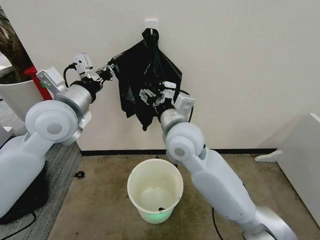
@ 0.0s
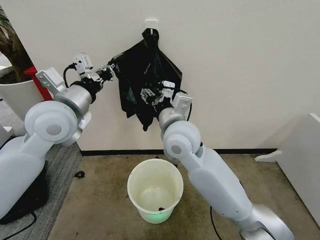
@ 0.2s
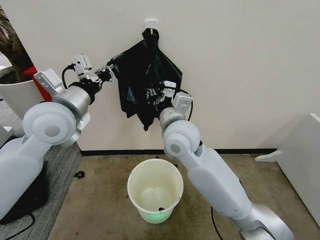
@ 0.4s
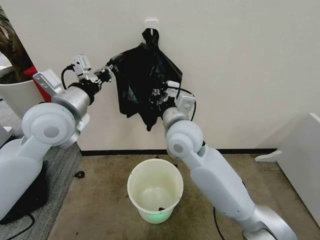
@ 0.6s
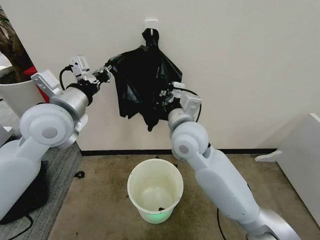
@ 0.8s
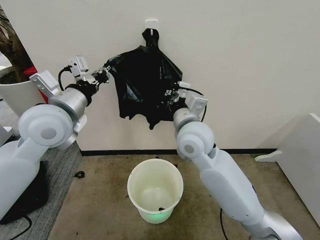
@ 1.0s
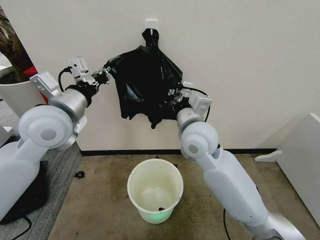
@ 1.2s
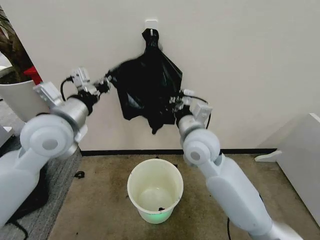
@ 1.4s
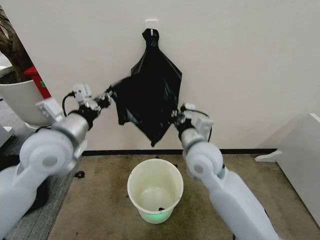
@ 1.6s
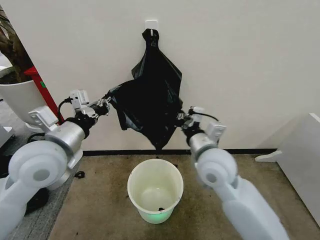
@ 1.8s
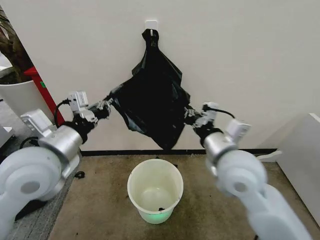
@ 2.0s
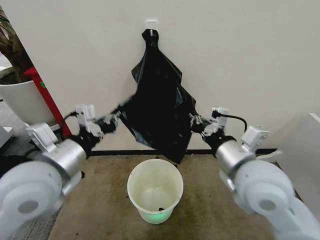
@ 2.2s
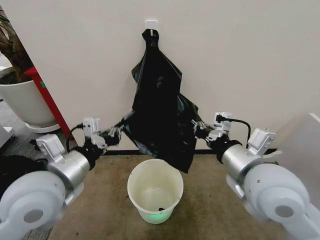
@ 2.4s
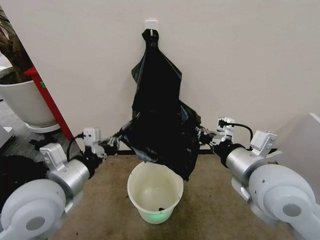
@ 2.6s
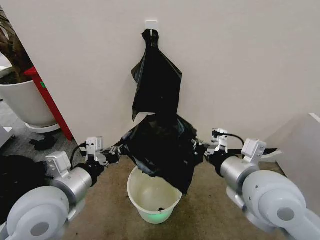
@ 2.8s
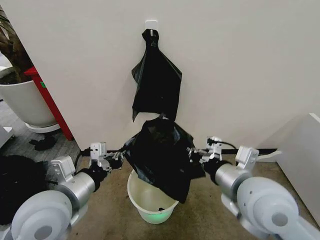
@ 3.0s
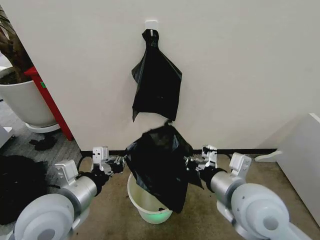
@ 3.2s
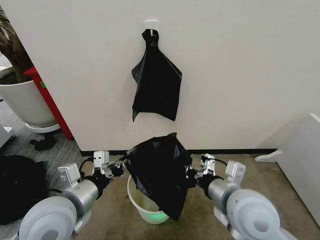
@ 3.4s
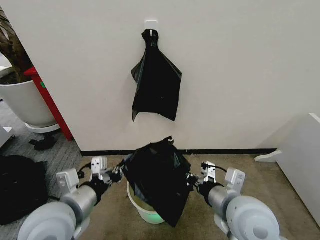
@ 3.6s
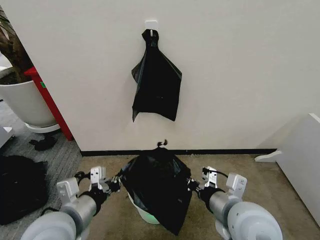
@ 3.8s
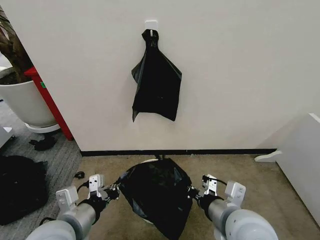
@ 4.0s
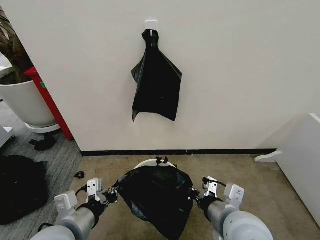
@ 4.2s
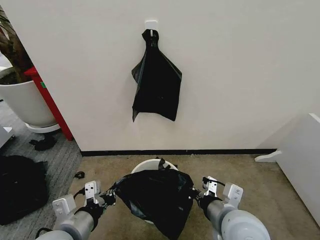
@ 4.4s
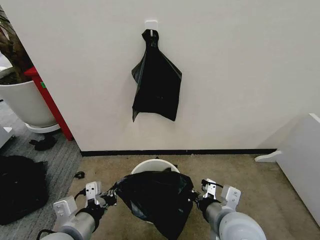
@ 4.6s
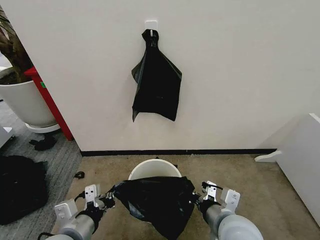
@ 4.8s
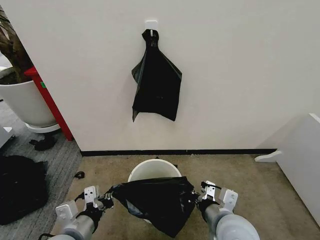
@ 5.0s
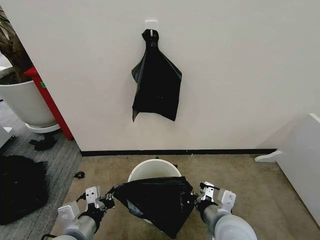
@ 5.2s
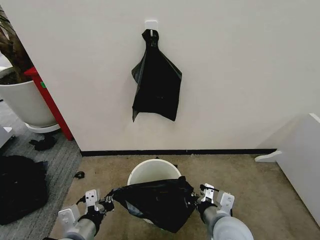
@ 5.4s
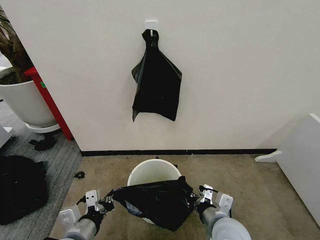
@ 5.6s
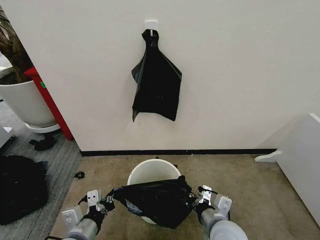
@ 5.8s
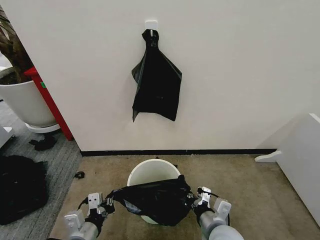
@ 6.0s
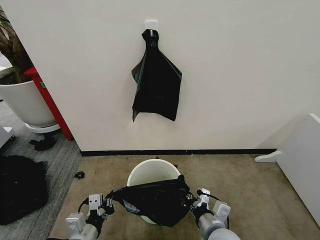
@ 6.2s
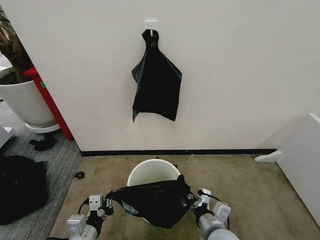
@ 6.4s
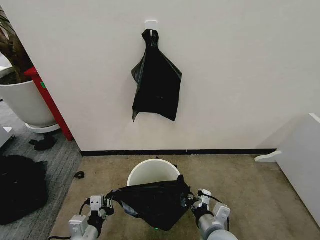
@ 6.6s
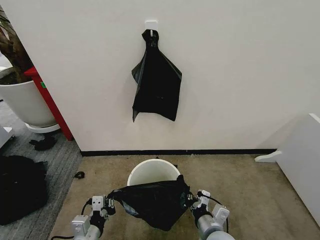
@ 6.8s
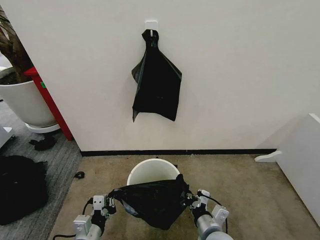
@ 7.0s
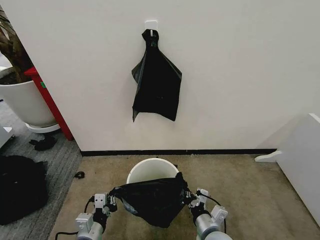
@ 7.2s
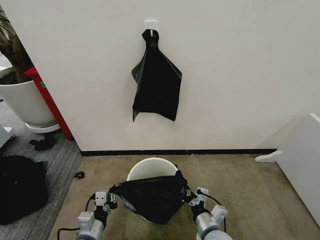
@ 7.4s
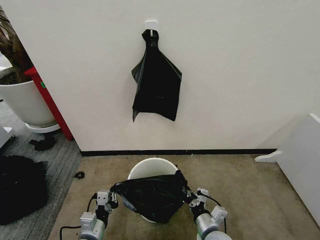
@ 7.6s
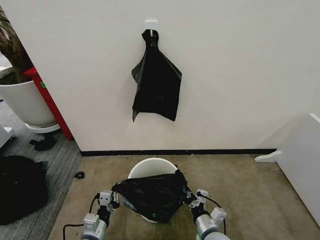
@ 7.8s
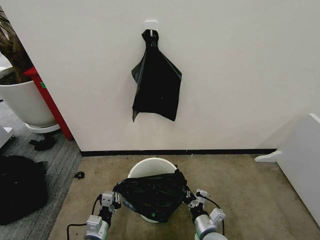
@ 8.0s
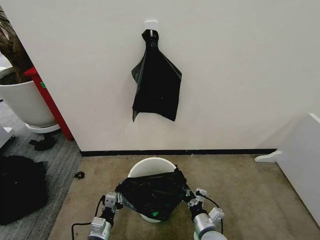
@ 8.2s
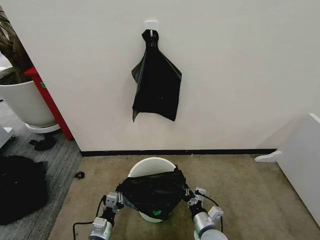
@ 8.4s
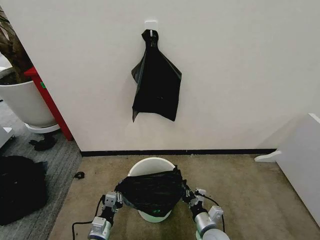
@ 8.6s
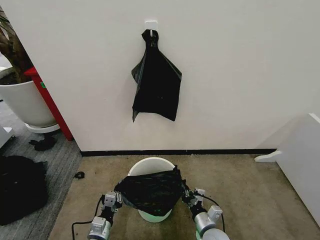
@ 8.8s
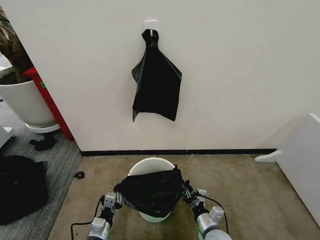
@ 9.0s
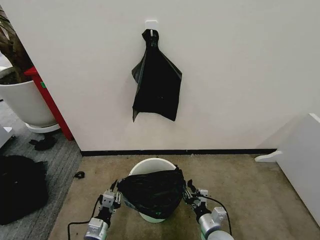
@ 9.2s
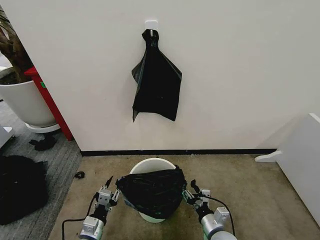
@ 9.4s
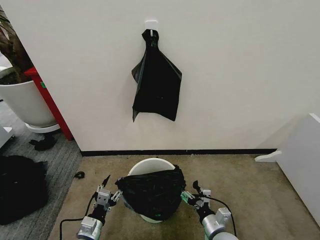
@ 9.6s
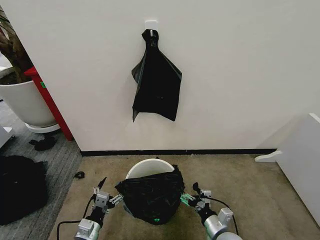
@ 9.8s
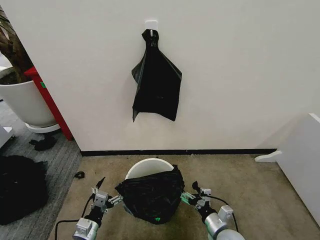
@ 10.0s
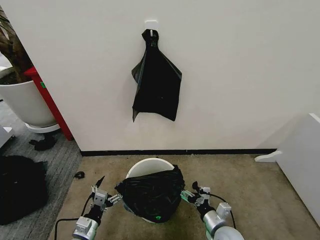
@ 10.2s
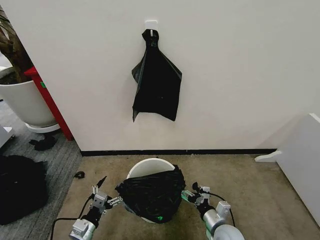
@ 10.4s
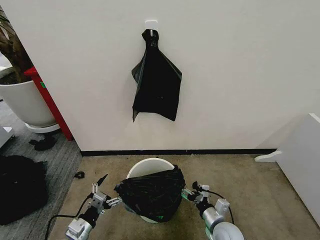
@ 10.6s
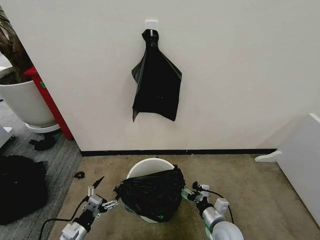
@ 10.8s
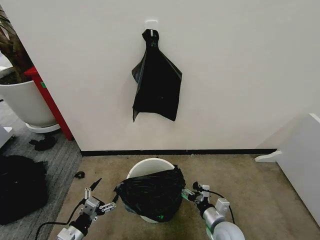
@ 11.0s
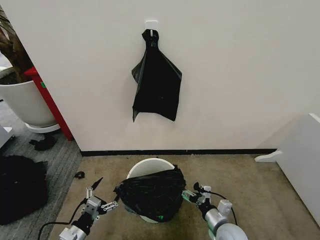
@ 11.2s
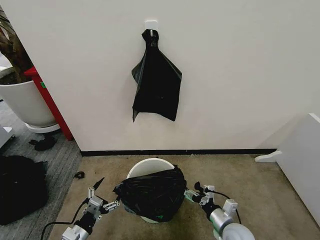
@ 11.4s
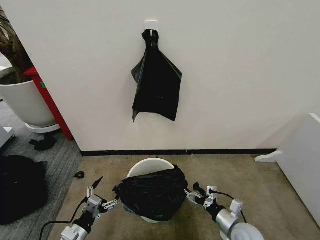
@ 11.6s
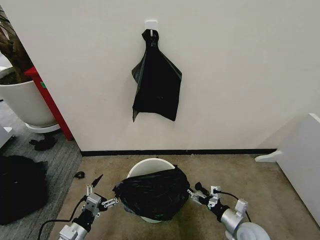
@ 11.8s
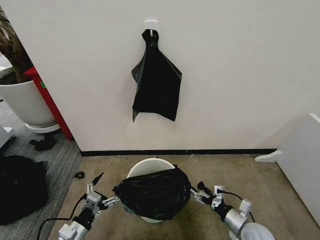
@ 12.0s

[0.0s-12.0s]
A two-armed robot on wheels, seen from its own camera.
Task of the whole recording: Place the garbage bag over the trash bin.
0.0s to 1.6s: The left gripper ends up about 5 cm from where it was; the right gripper heads downward and to the right, covering approximately 10 cm, and closes up.
1.6s to 3.0s: The right gripper heads backward and to the right, covering about 15 cm; the left gripper goes about 10 cm backward and downward.
3.0s to 4.4s: The right gripper is displaced downward by about 10 cm; the left gripper goes about 10 cm downward and backward.
4.4s to 6.0s: Both grippers travel together downward, about 10 cm.
6.0s to 7.6s: Both grippers travel together downward, approximately 10 cm.
7.6s to 9.0s: The grippers both shift downward by approximately 5 cm.
9.0s to 10.4s: The left gripper moves to the left, some 5 cm, and opens its fingers. The right gripper opens.
10.4s to 12.0s: The right gripper heads to the right, covering approximately 10 cm.

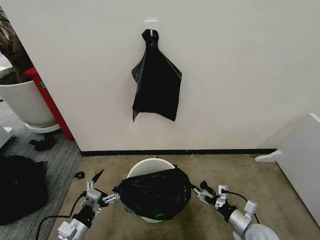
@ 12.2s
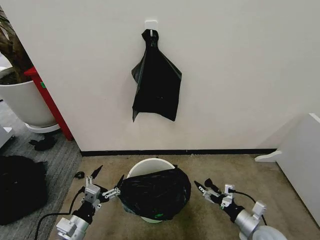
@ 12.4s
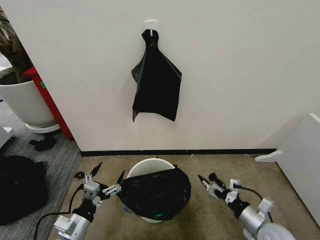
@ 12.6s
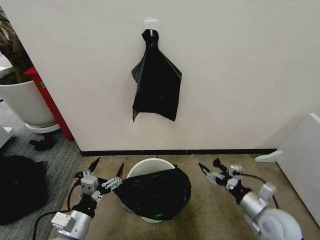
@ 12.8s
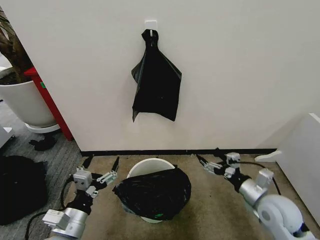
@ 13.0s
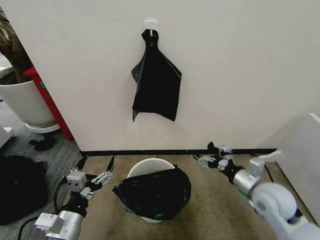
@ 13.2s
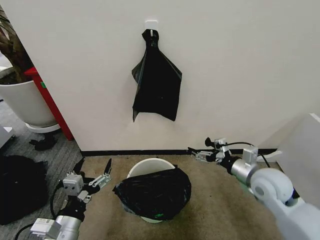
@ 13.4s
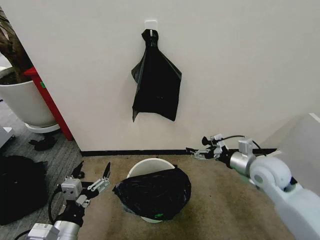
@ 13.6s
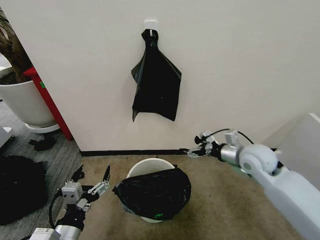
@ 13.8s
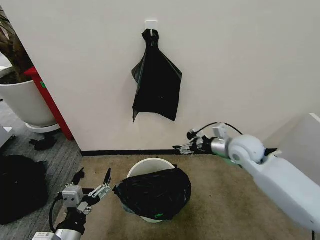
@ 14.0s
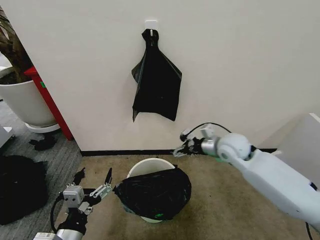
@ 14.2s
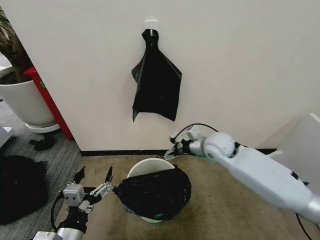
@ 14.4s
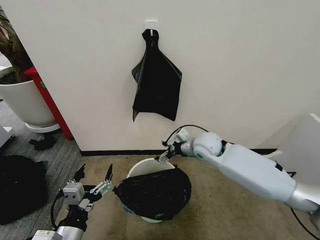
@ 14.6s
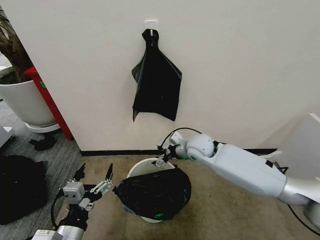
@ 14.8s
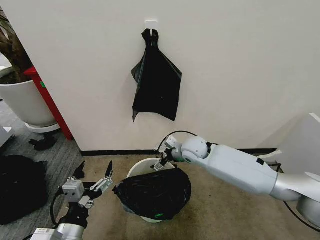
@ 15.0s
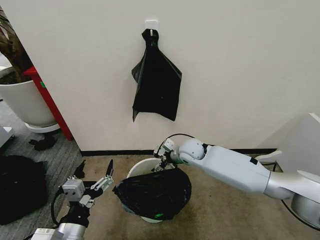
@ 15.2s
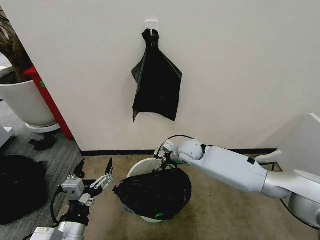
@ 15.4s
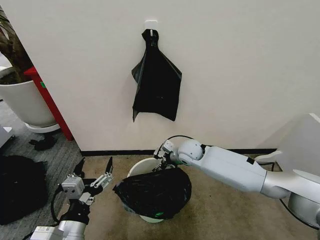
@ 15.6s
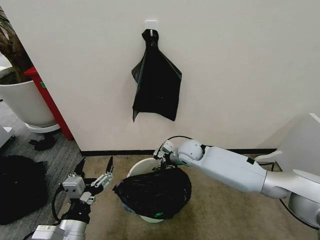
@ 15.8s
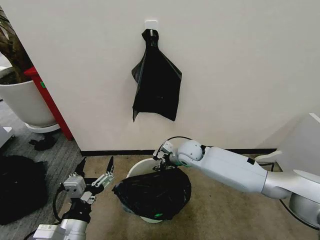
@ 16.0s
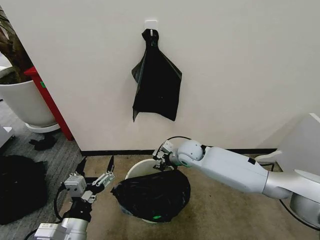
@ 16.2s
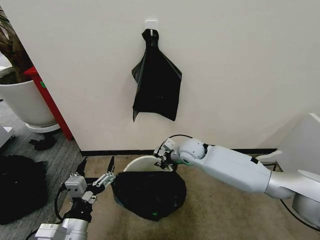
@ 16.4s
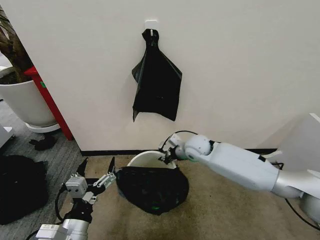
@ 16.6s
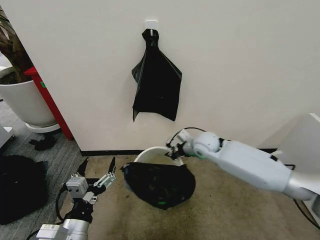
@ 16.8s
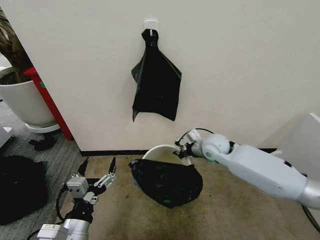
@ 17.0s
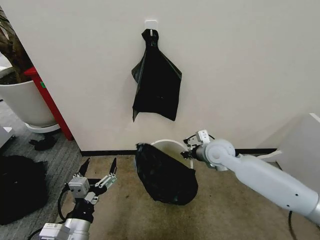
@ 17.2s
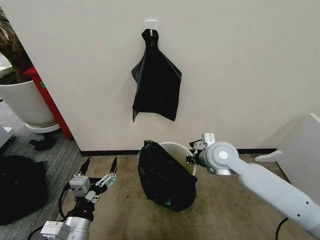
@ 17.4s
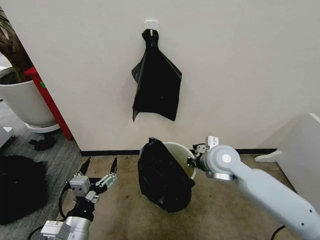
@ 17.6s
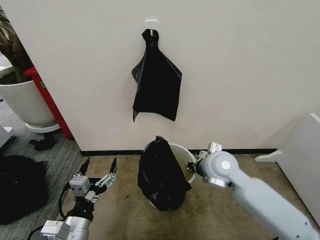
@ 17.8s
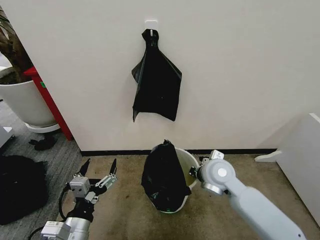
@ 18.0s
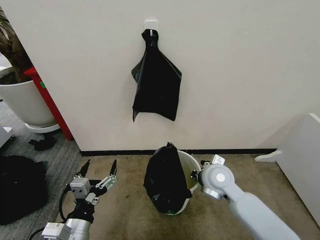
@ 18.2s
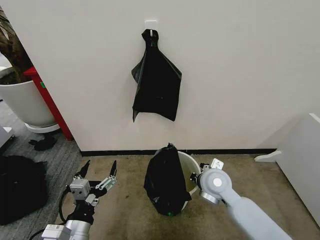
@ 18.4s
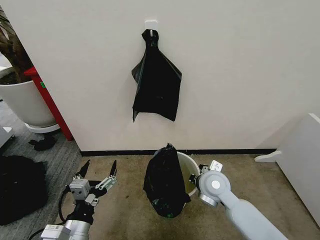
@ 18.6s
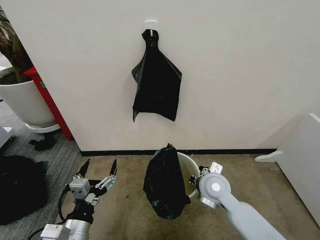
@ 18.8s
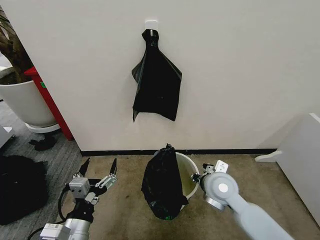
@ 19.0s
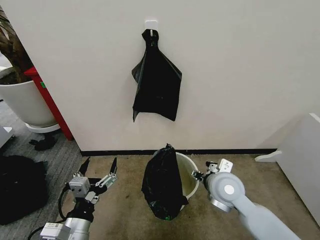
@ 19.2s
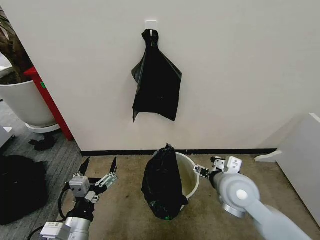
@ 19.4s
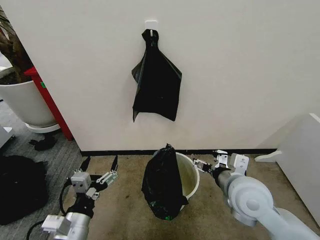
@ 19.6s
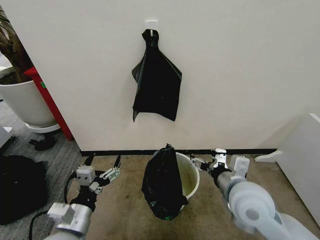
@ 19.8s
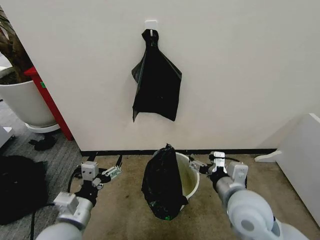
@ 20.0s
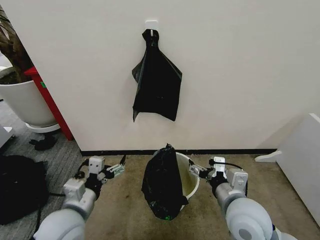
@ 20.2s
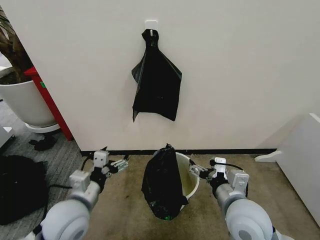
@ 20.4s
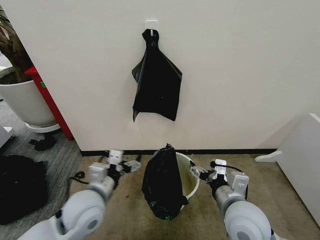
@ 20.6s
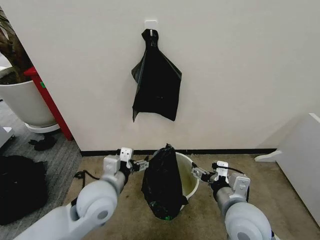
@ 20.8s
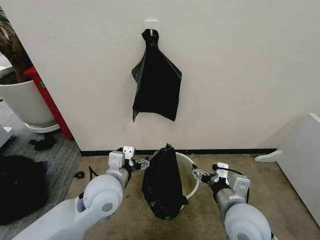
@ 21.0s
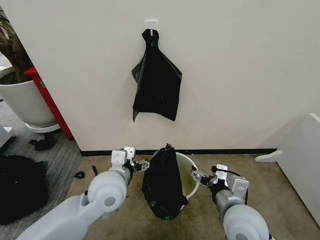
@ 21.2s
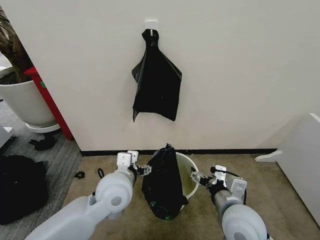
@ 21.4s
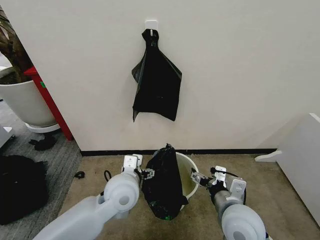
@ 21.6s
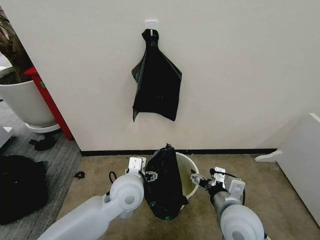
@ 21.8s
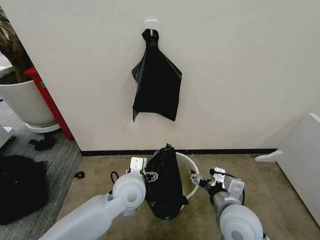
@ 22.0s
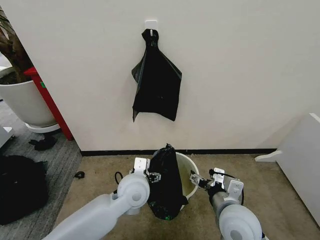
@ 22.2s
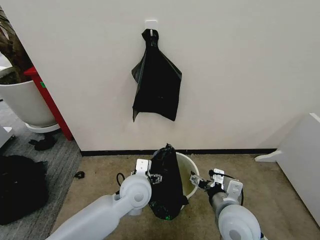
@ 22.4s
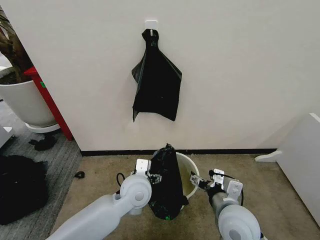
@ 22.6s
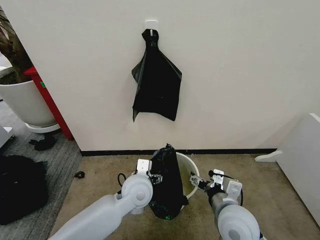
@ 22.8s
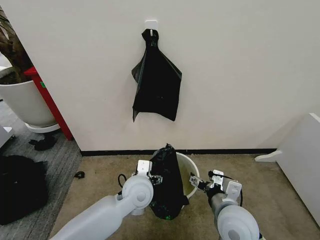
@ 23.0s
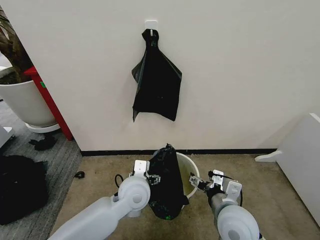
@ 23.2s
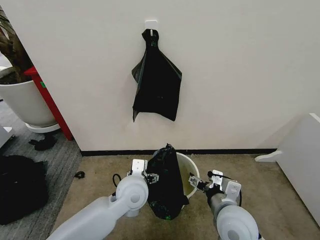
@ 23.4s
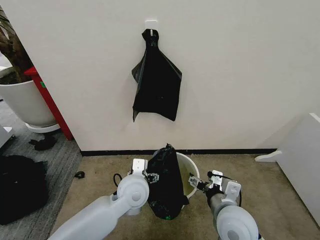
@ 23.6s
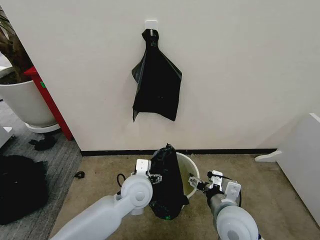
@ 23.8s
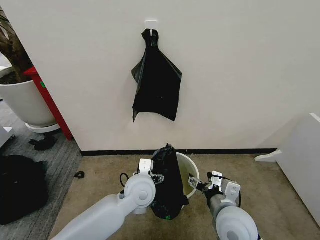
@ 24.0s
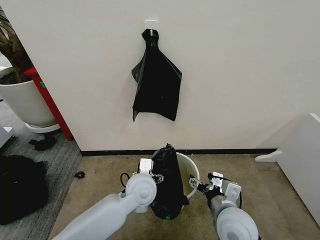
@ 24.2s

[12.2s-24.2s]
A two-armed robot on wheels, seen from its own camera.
Task of the whole recording: Place the garbage bag over the trash bin.
12.2s to 13.8s: The right gripper heads upward and forward, covering approximately 25 cm. Meanwhile the left gripper shifts some 10 cm upward and to the right.
13.8s to 15.2s: The right gripper travels to the left, forward and downward by roughly 20 cm.
15.2s to 16.6s: The right gripper closes.
16.6s to 18.2s: The right gripper is displaced backward by approximately 15 cm.
18.2s to 19.8s: The right gripper shifts roughly 10 cm backward and upward, and opens.
19.8s to 21.2s: The right gripper shifts by roughly 5 cm. The left gripper heads forward, to the right and upward, covering some 15 cm.
21.2s to 22.6s: The left gripper moves downward and to the right, about 10 cm.
22.6s to 24.2s: The grippers make only small movements.
